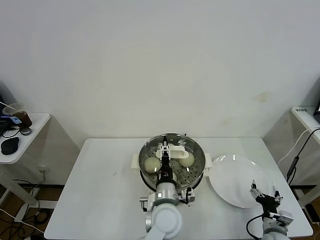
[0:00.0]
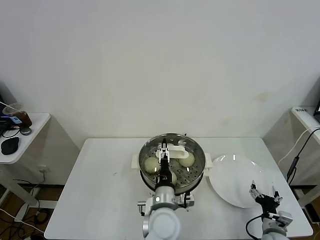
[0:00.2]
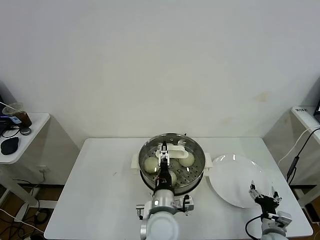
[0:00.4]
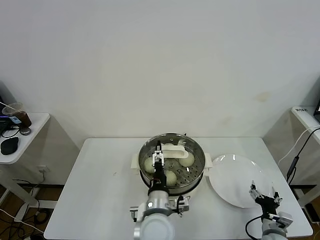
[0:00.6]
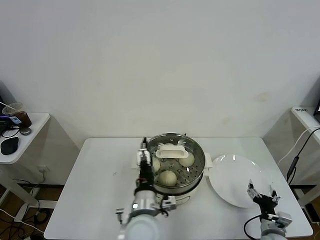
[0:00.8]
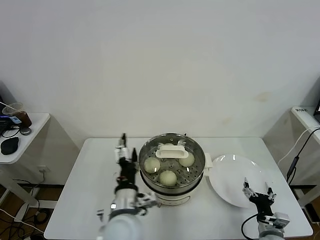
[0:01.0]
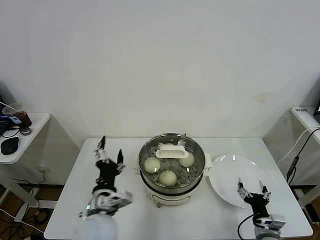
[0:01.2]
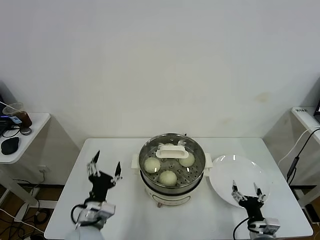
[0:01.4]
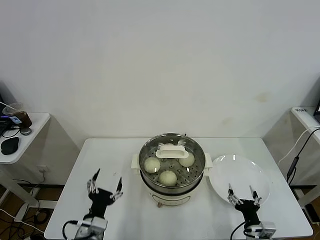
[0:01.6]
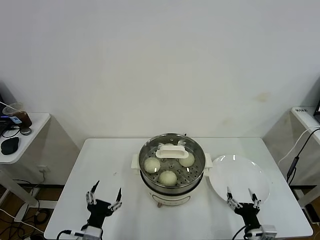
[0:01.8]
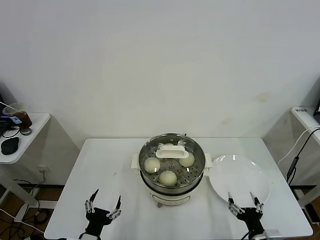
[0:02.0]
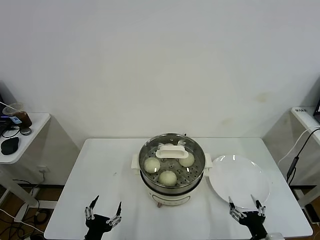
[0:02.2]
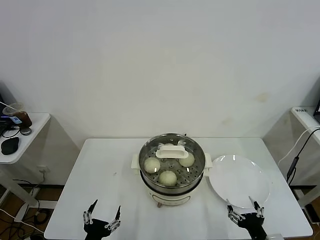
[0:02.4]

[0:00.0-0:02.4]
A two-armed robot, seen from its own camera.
Task of the whole recording: take steamed baozi put them in steamer.
0:00.0 to 0:01.2: The left gripper heads to the left, covering approximately 15 cm.
0:01.2 to 0:02.4: The right gripper heads backward and upward, covering roughly 10 cm. Meanwhile the left gripper travels backward, downward and to the left by about 20 cm.

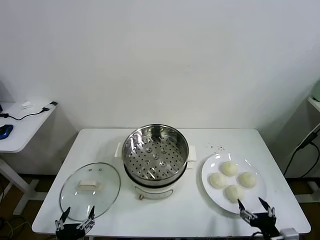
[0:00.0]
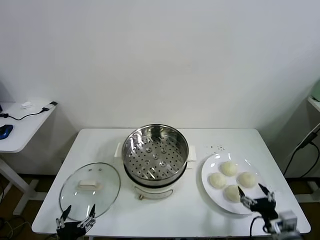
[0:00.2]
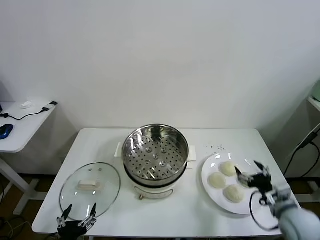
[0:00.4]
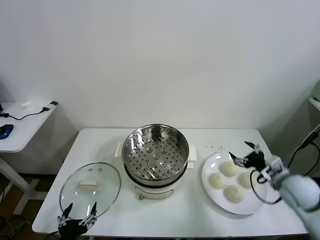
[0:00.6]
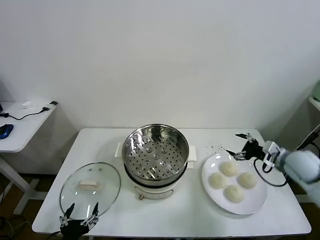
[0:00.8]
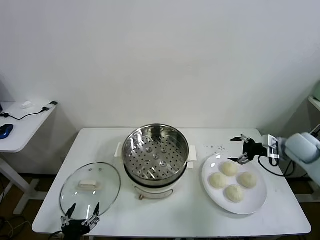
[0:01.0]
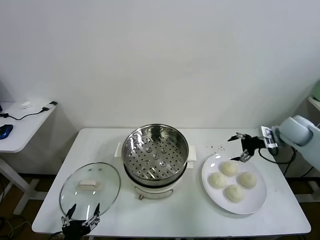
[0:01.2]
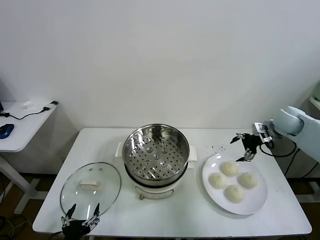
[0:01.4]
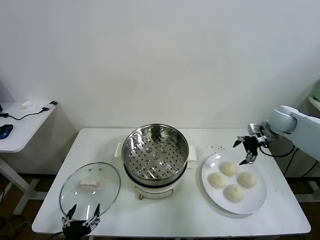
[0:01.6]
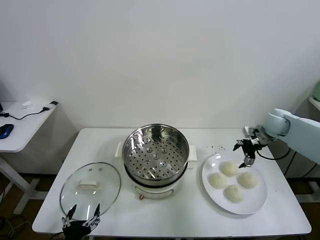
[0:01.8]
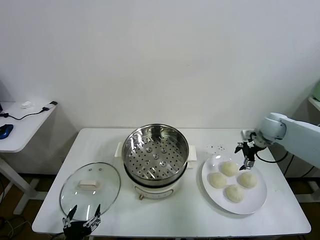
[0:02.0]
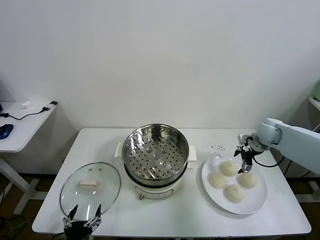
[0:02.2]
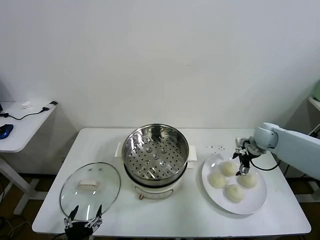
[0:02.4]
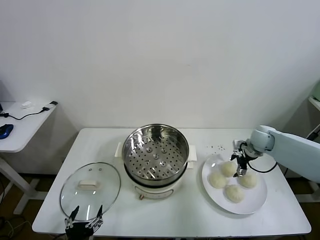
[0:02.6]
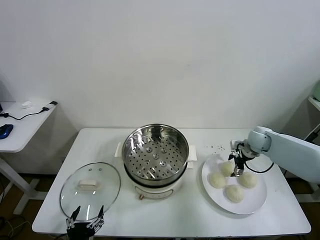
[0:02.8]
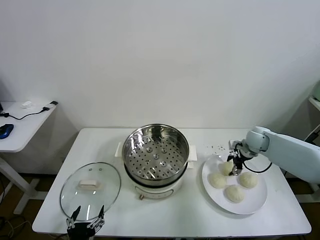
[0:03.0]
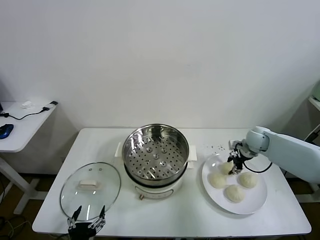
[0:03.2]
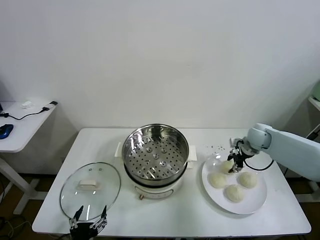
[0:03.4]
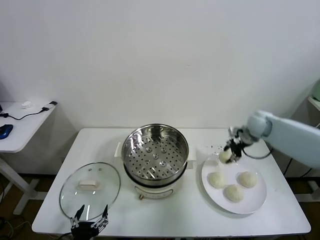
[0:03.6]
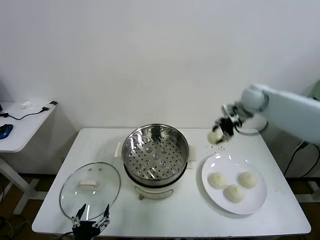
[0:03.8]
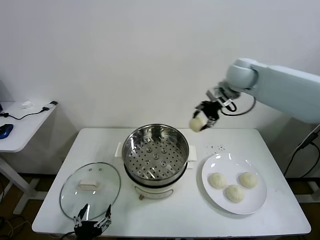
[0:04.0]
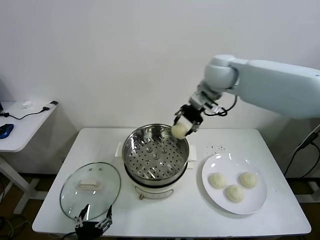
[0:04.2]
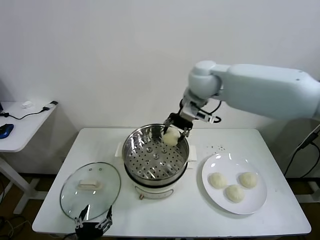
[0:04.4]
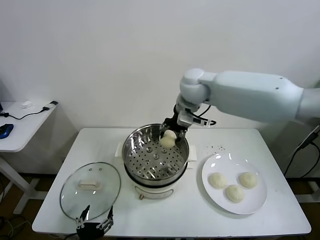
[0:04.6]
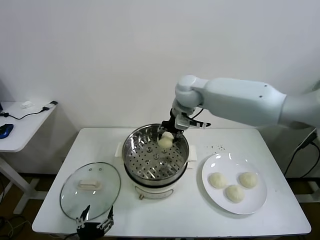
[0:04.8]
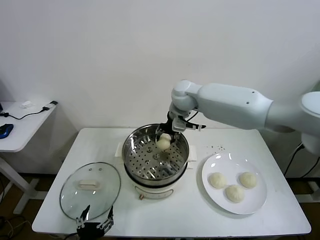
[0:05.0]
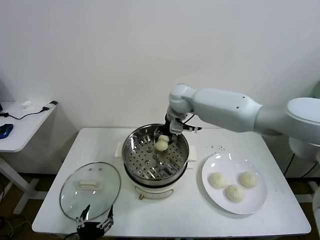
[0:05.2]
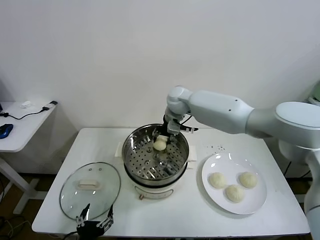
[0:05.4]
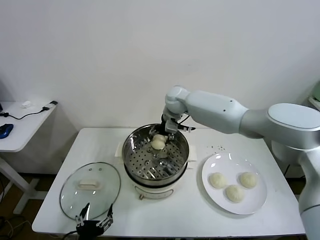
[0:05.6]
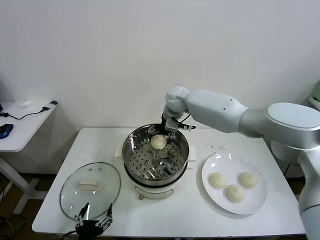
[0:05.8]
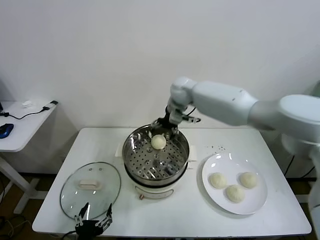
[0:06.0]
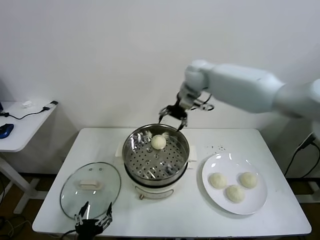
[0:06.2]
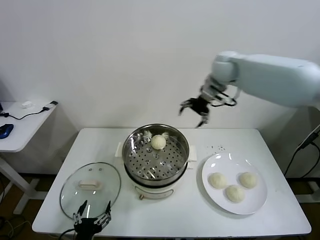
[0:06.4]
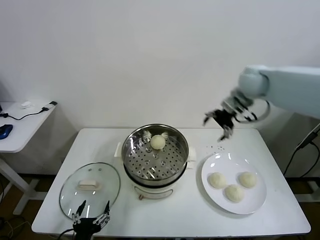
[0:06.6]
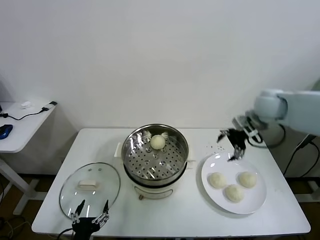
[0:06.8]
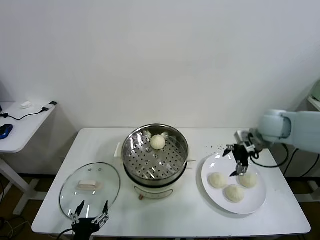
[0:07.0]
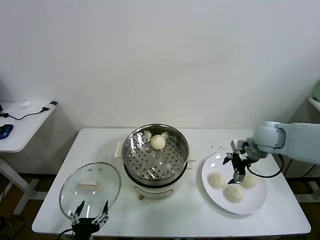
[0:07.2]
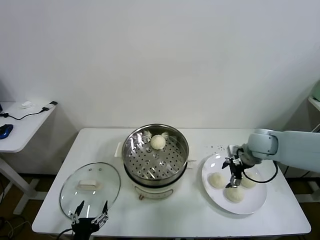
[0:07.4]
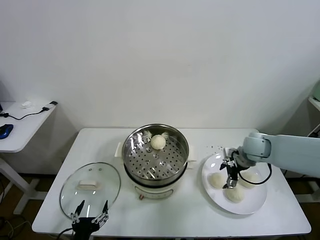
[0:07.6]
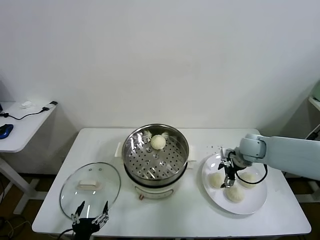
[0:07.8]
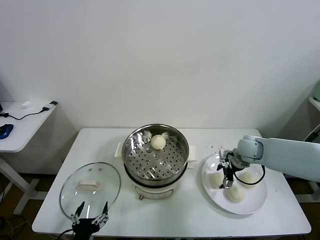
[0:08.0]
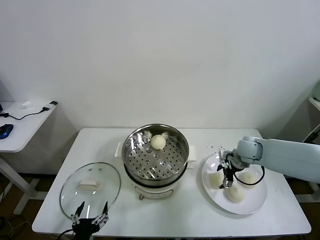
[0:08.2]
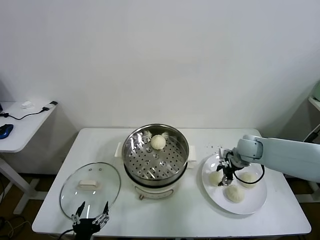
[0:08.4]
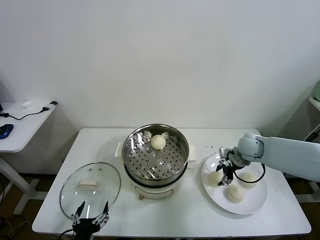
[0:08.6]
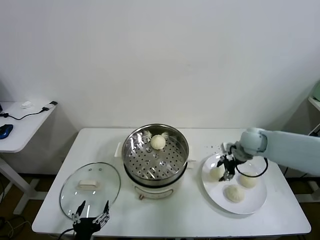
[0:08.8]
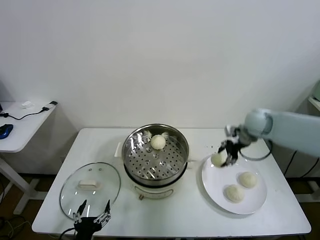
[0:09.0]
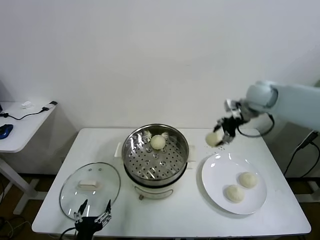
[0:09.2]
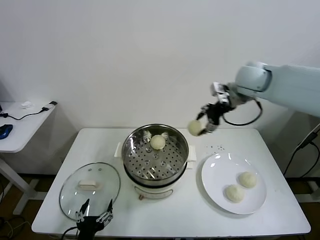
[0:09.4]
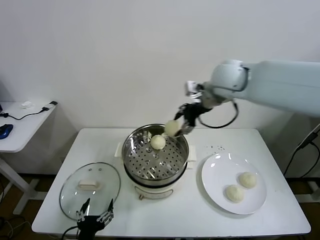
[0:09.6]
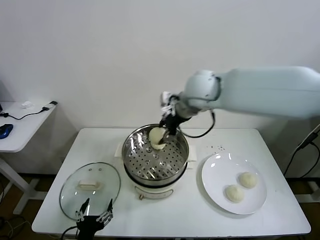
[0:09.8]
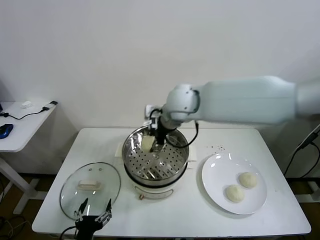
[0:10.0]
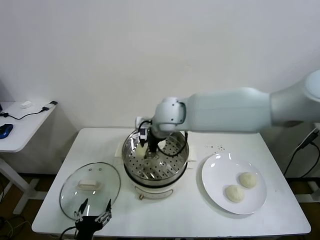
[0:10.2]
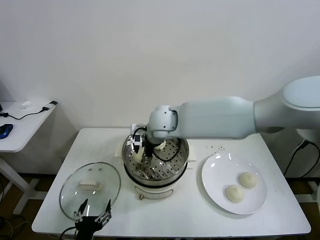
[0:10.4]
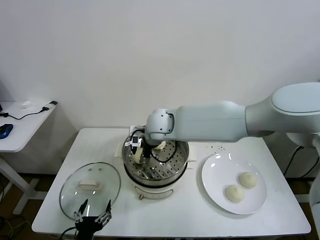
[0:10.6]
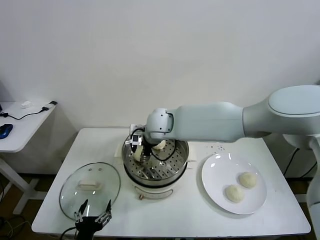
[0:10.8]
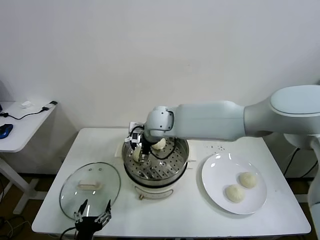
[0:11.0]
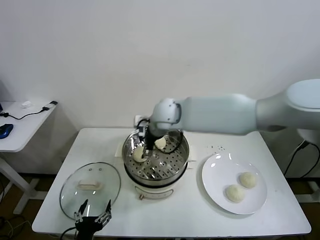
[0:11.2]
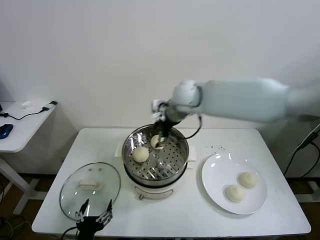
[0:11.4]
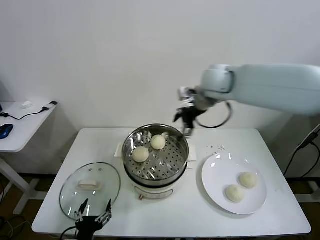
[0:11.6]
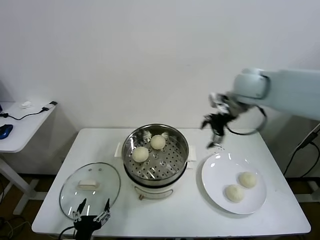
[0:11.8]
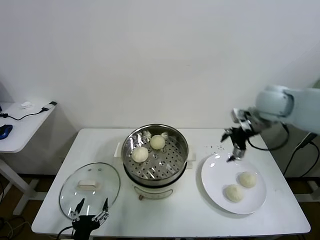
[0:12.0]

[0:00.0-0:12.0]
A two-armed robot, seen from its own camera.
Task of the whole recording: take steamed baozi put them in steamer.
Step, 0:00.0 to 0:03.0: Grasp the baozi in the plate with right gripper.
Step, 0:03.2 to 0:05.8: Place the baozi on the steamer with right gripper.
Step, 0:06.0 to 0:08.4: Grasp the baozi in the plate with right gripper.
Step, 0:08.6 to 0:11.2: Place the baozi on the steamer with right gripper.
0:01.6 to 0:03.0: The right gripper shifts about 10 cm downward, and closes up.
0:03.0 to 0:04.4: The right gripper is displaced to the left and upward by about 35 cm.
0:04.4 to 0:06.0: The right gripper goes some 10 cm forward, and opens.
0:06.0 to 0:07.6: The right gripper is displaced to the right, downward and backward by approximately 35 cm.
0:07.6 to 0:09.0: The right gripper goes roughly 15 cm upward and forward, and closes its fingers.
0:09.0 to 0:10.4: The right gripper travels to the left by roughly 35 cm.
0:10.4 to 0:12.0: The right gripper is displaced to the right by about 35 cm, and opens its fingers.

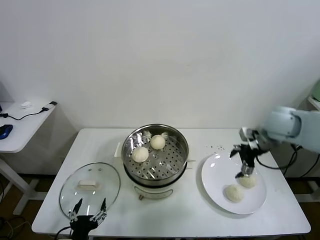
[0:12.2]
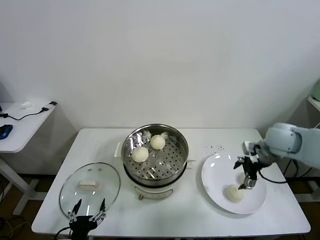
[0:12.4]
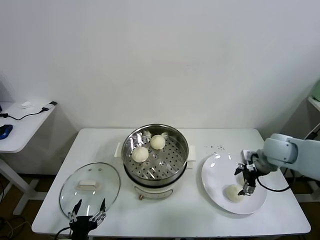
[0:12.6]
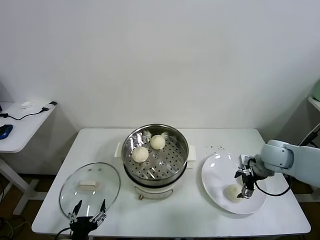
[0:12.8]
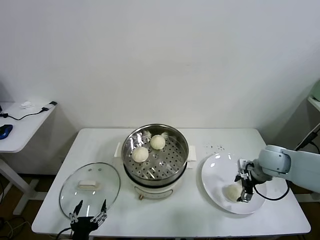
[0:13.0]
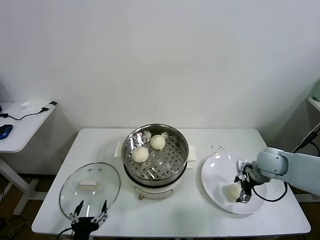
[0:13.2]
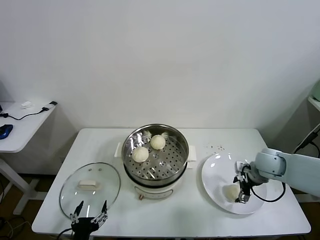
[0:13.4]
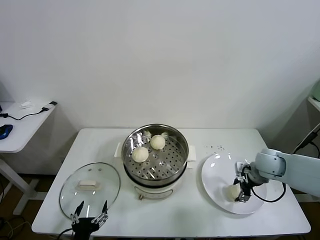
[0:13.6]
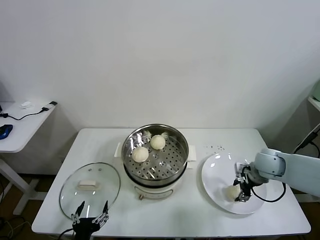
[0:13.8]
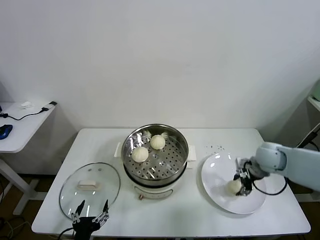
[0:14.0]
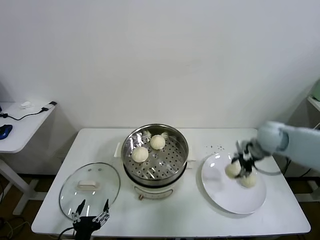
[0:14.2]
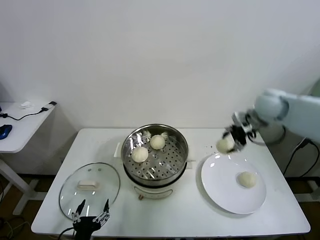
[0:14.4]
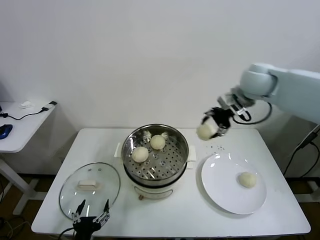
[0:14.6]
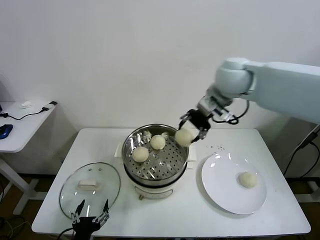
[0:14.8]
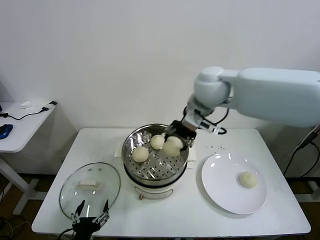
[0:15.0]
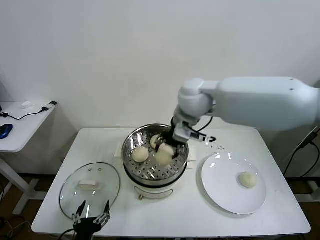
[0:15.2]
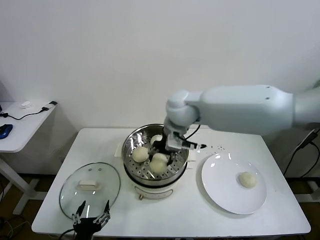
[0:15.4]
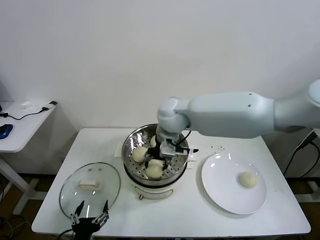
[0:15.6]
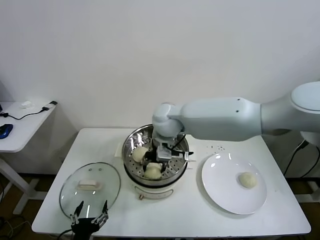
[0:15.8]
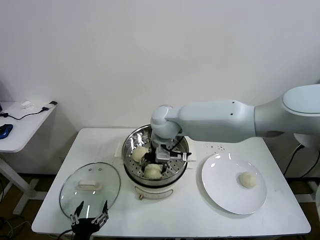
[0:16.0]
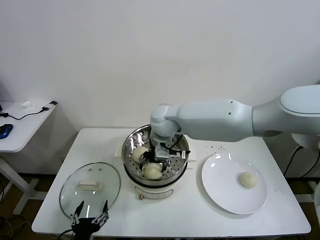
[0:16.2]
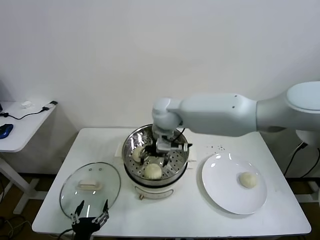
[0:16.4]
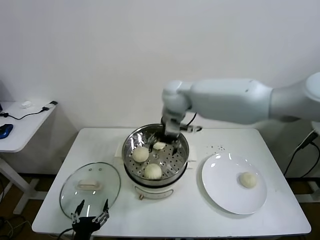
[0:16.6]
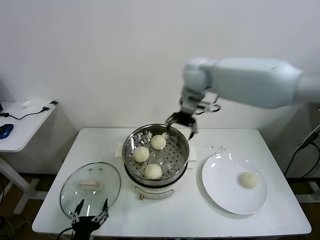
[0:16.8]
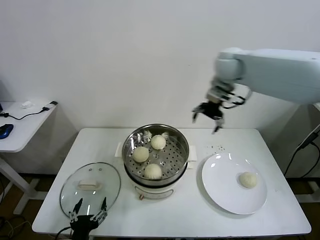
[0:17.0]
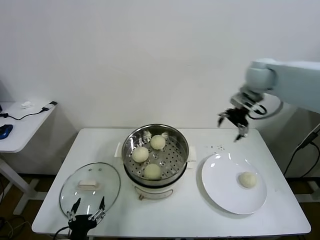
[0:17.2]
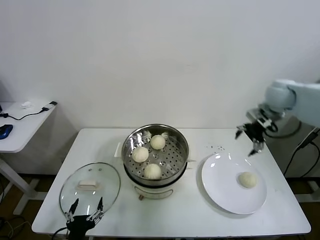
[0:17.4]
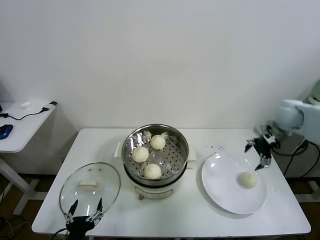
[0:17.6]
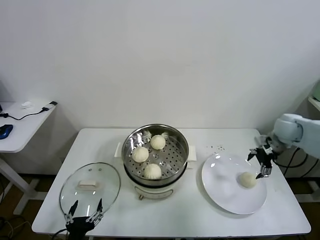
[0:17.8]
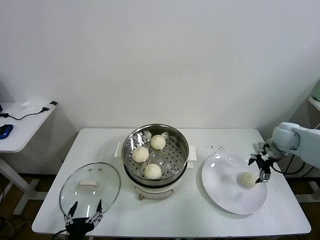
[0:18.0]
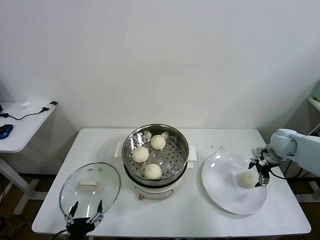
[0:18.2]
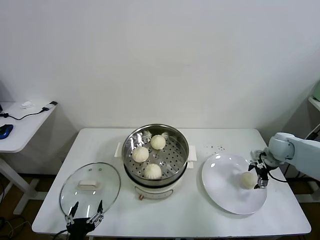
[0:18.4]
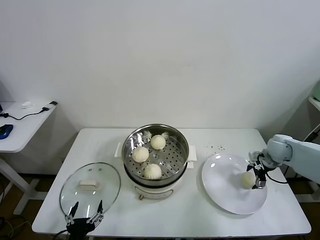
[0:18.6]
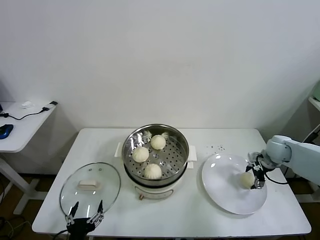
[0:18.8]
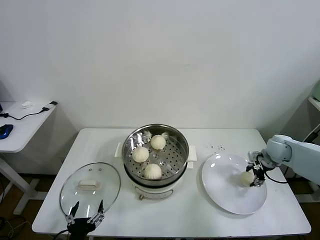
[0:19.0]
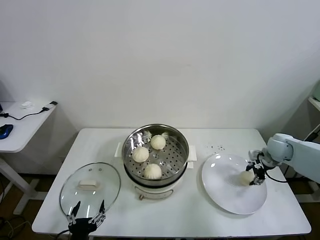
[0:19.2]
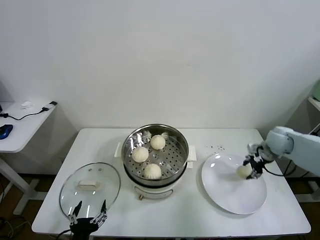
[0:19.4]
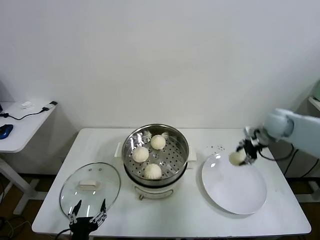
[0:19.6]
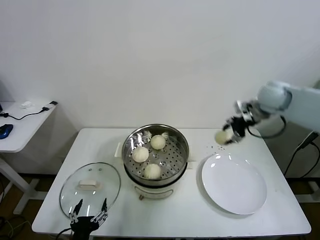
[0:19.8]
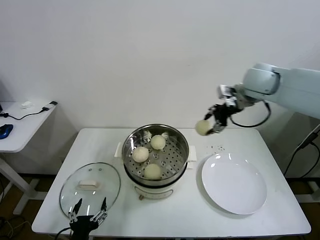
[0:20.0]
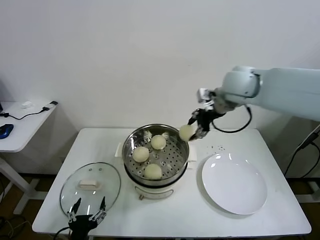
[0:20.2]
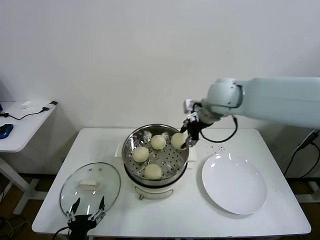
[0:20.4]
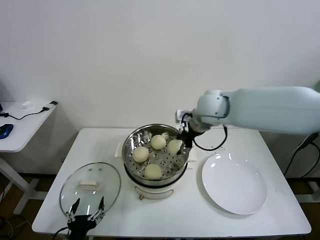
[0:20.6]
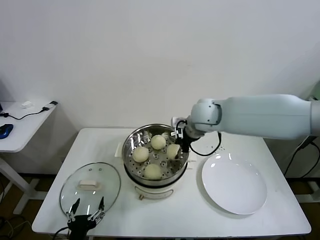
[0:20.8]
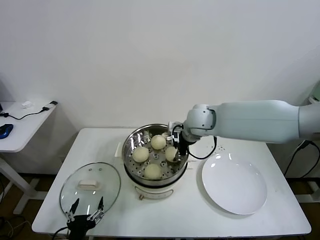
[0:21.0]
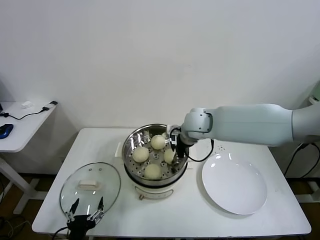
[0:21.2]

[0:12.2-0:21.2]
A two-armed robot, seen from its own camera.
Task of the whole recording: take steamed baozi put them in steamer.
Step, 0:12.2 to 0:13.6: Grasp the baozi in the plate with right gripper.
Step, 0:13.8 to 0:16.2: Place the baozi on the steamer with right gripper.
Step, 0:16.4 to 0:18.8: Grasp the baozi in the plate with right gripper.
0:12.2 to 0:13.8: The right gripper goes approximately 15 cm downward, and closes.
0:13.8 to 0:15.2: The right gripper is displaced to the left and upward by some 35 cm.
0:15.2 to 0:16.6: The right gripper is displaced forward by roughly 5 cm, moves roughly 10 cm downward and comes back, and opens its fingers.
0:16.6 to 0:18.2: The right gripper heads to the right and downward, covering approximately 40 cm.
0:18.2 to 0:19.8: The right gripper heads upward and to the left, covering some 20 cm, and closes up.
0:19.8 to 0:21.2: The right gripper heads to the left, covering some 20 cm.
